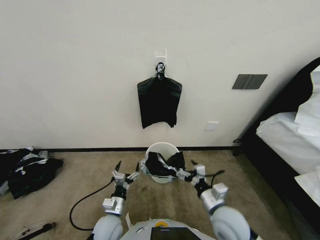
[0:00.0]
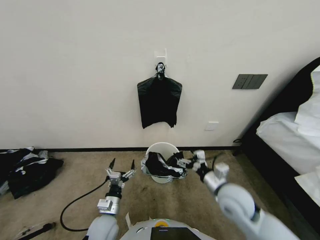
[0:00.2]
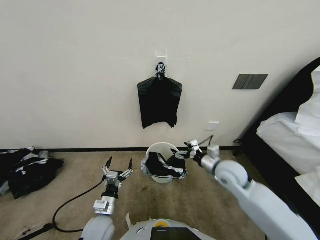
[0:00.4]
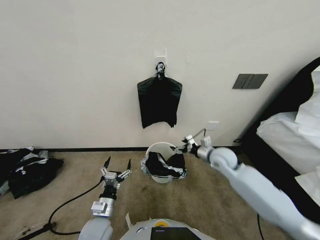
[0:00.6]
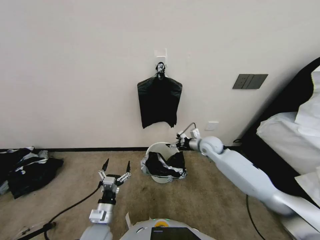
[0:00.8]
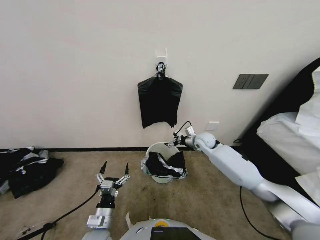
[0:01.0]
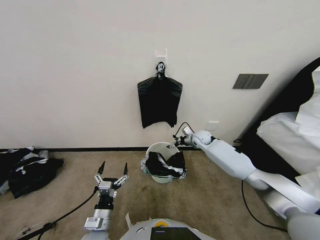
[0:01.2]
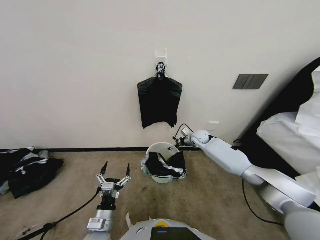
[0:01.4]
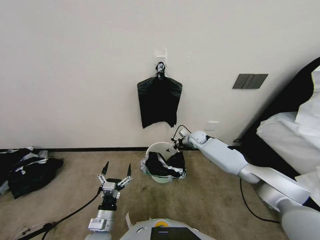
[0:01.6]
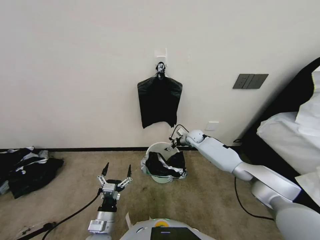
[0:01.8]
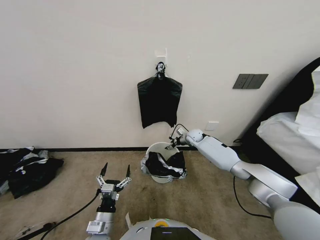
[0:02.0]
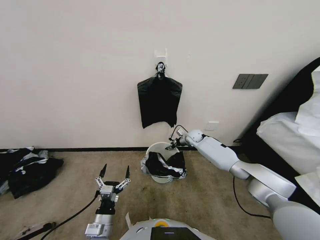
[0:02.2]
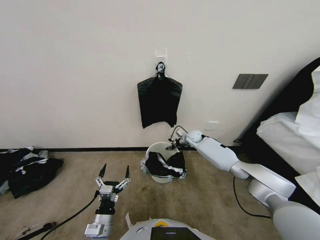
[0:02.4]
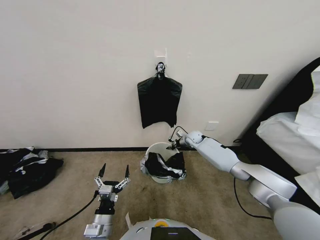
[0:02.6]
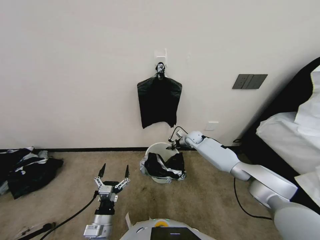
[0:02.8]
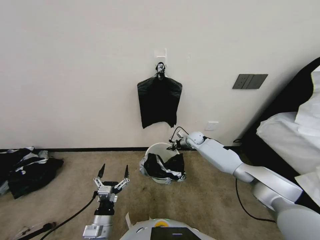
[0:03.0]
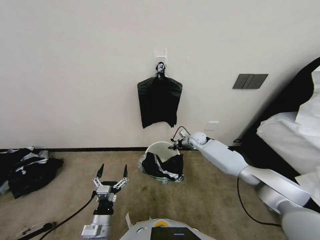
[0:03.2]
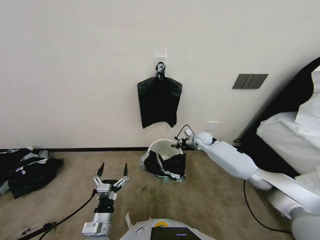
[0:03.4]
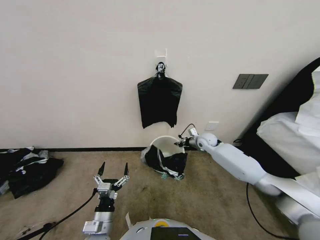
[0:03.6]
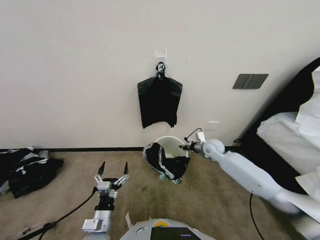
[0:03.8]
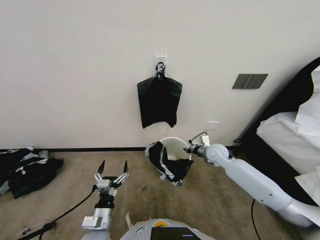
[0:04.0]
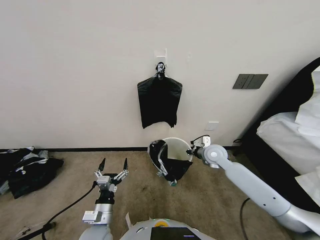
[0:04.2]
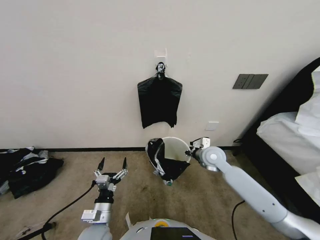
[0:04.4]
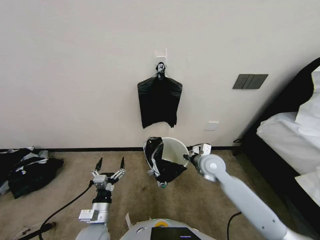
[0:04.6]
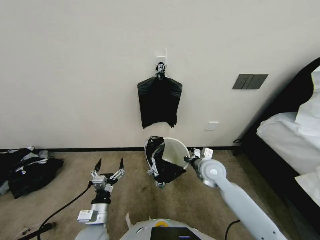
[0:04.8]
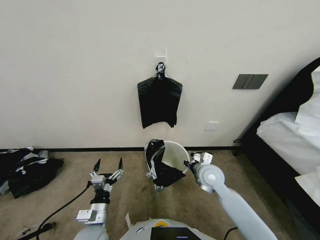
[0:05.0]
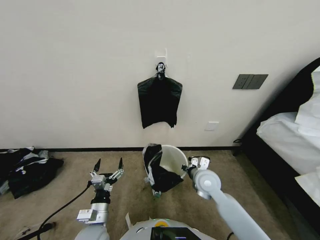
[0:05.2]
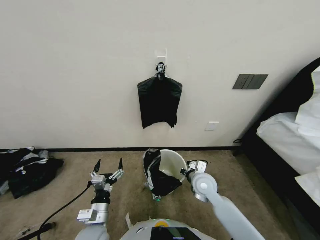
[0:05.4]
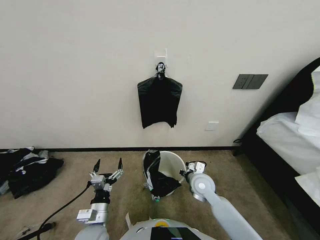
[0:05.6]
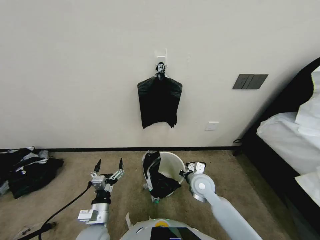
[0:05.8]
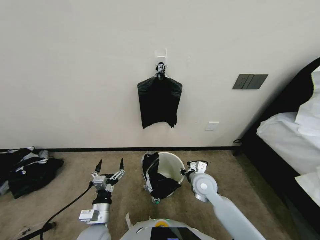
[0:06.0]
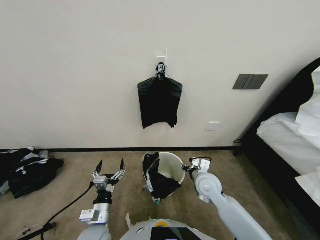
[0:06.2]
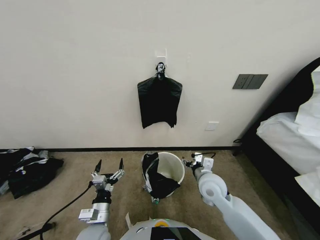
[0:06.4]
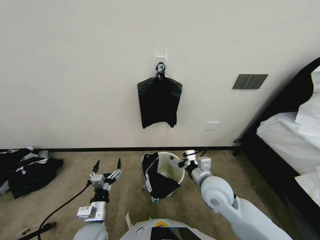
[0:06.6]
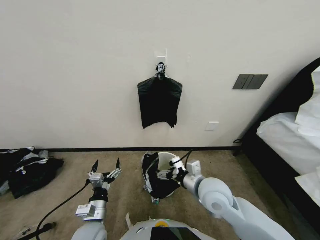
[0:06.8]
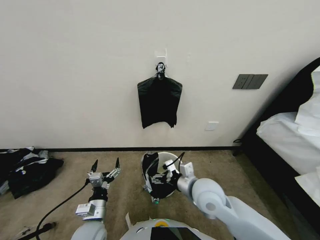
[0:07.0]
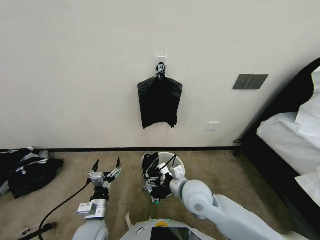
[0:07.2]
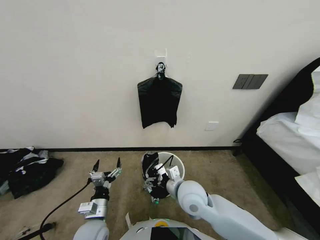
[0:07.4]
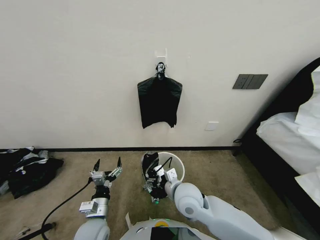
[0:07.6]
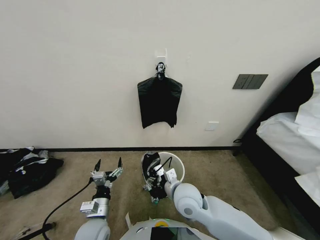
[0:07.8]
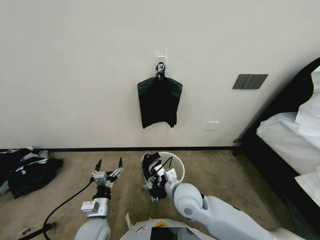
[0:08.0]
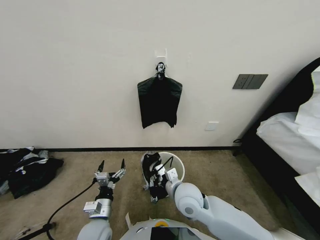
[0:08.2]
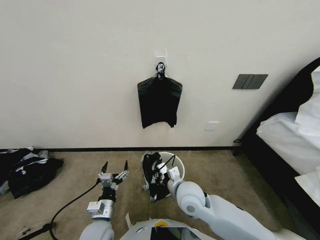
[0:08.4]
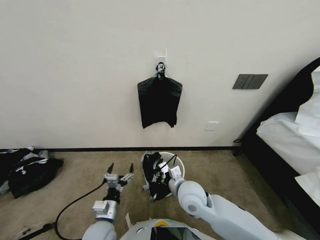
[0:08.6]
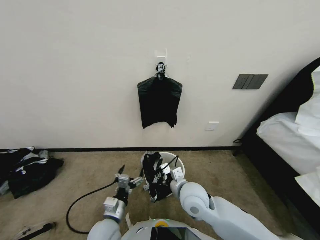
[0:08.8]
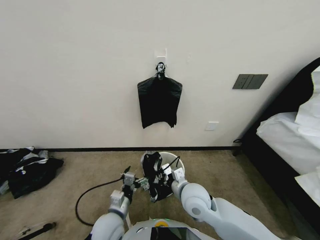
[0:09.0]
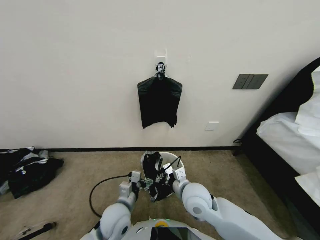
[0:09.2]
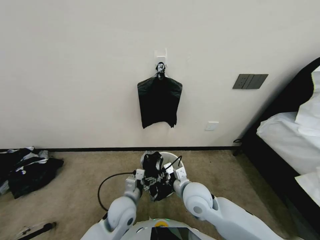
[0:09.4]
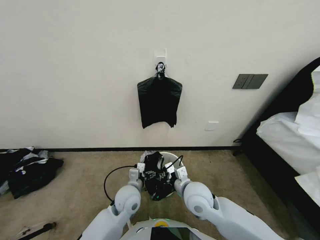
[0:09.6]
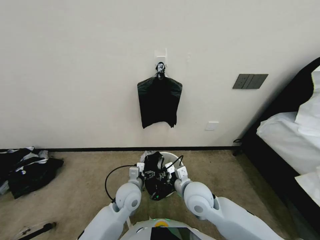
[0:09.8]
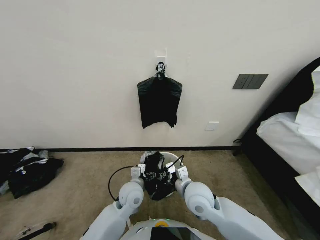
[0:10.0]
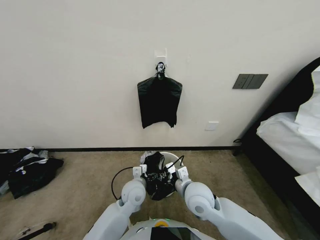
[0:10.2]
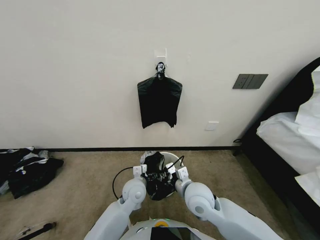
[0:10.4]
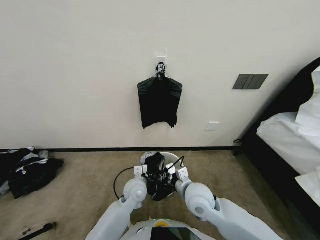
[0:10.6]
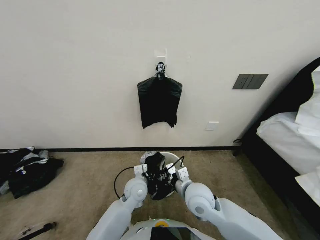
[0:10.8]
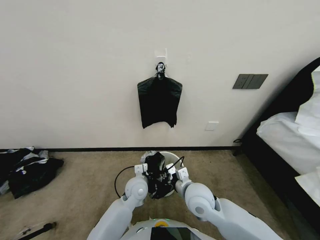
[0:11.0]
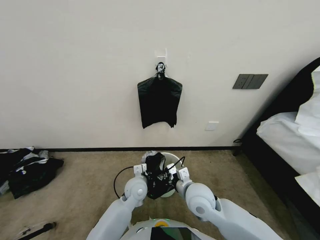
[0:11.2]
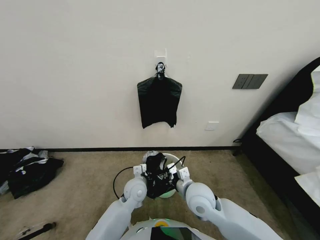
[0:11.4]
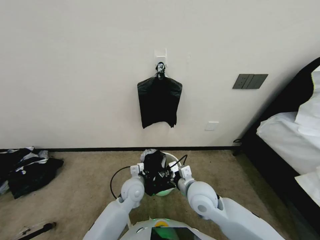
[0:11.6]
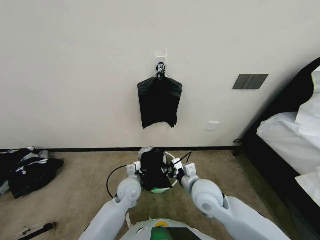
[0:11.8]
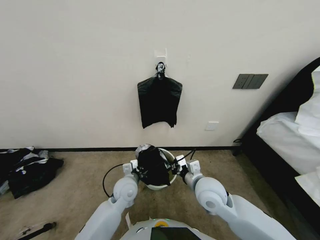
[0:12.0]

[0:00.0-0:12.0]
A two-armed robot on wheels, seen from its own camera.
Task of the whole recording: Place a trash bag onto the trash bin.
0:00.0 to 0:01.6: The left gripper ends up roughly 5 cm from where it was. Meanwhile the right gripper goes about 40 cm forward.
0:01.6 to 0:03.0: The right gripper closes up.
0:03.0 to 0:04.4: The right gripper is displaced backward and upward by approximately 20 cm.
0:04.4 to 0:06.0: The right gripper is displaced backward, downward and to the left by roughly 15 cm.
0:06.0 to 0:07.6: The right gripper is displaced to the left, upward and backward by some 15 cm, and opens its fingers.
0:07.6 to 0:09.0: The left gripper ends up some 5 cm from where it was. The right gripper closes its fingers.
0:09.0 to 0:10.4: The left gripper heads forward and to the right, covering some 15 cm.
0:10.4 to 0:12.0: The left gripper closes up.

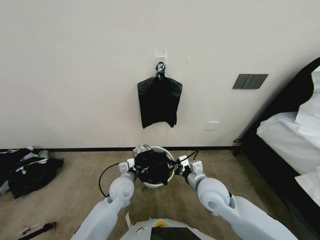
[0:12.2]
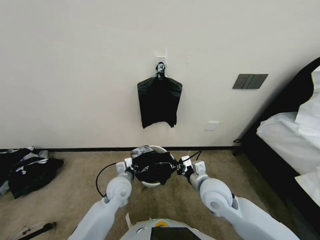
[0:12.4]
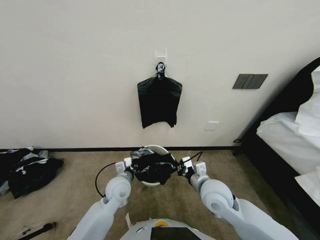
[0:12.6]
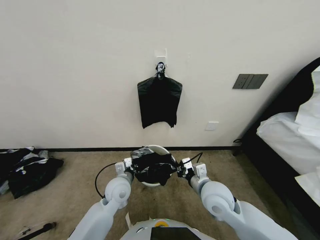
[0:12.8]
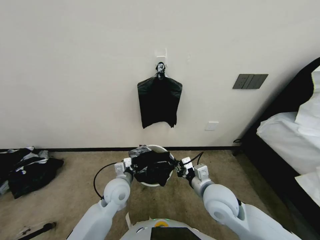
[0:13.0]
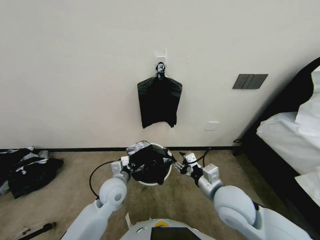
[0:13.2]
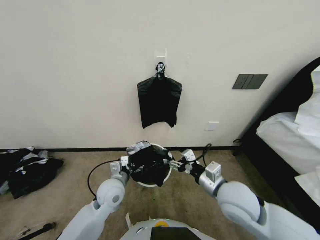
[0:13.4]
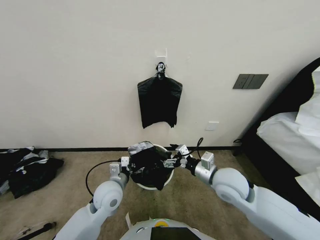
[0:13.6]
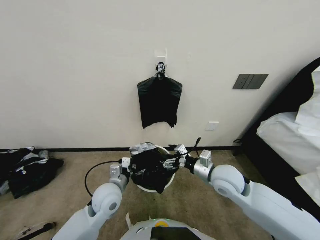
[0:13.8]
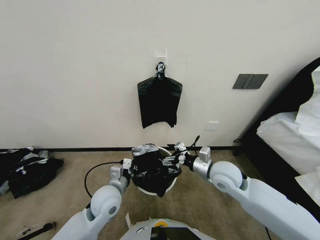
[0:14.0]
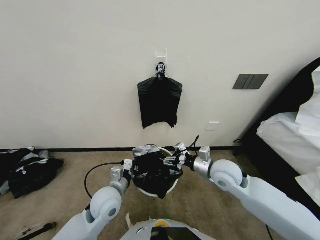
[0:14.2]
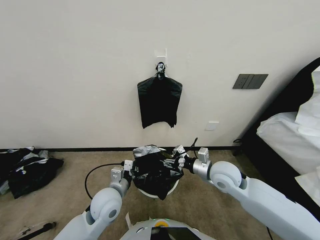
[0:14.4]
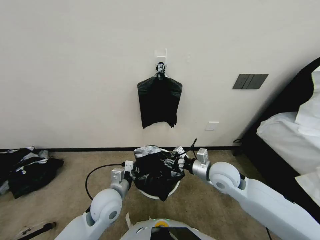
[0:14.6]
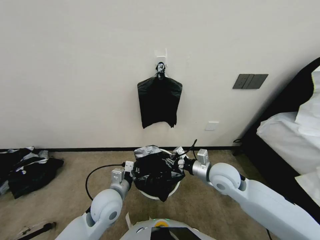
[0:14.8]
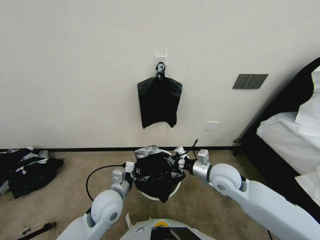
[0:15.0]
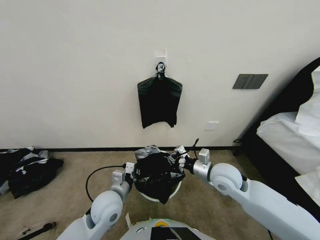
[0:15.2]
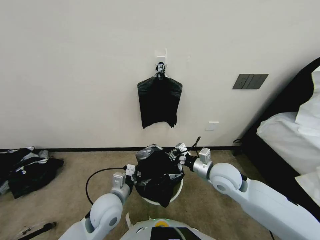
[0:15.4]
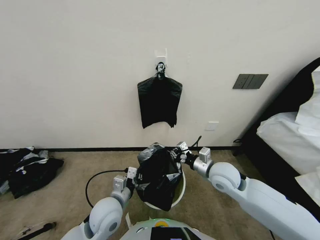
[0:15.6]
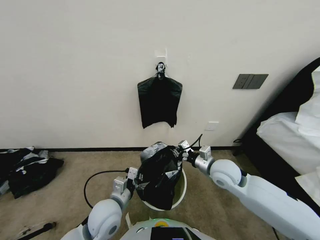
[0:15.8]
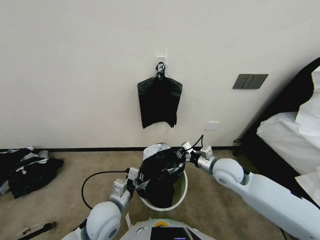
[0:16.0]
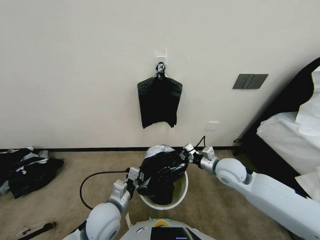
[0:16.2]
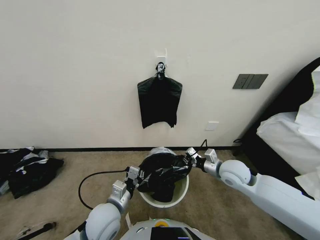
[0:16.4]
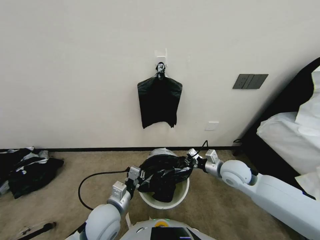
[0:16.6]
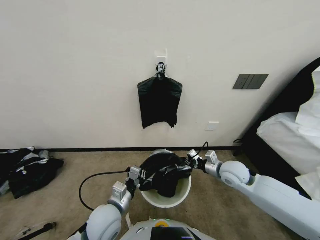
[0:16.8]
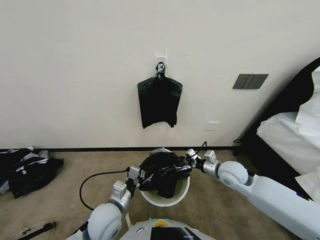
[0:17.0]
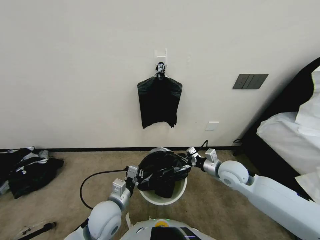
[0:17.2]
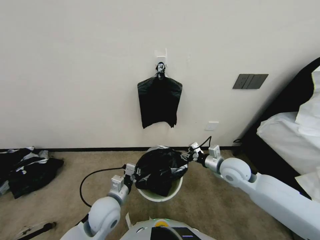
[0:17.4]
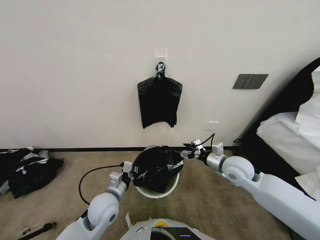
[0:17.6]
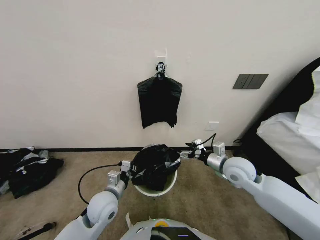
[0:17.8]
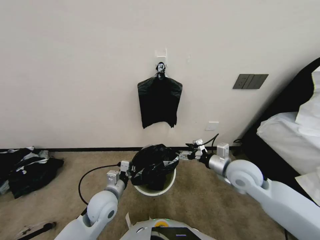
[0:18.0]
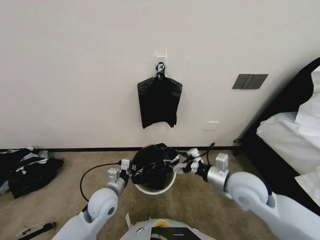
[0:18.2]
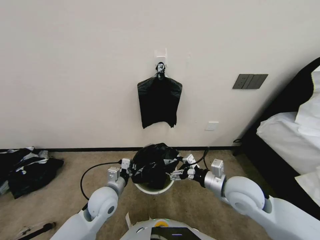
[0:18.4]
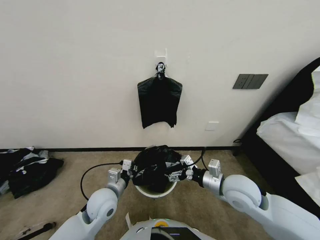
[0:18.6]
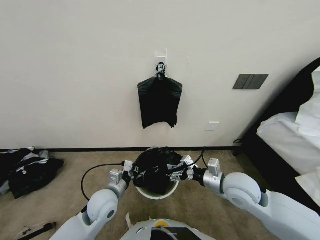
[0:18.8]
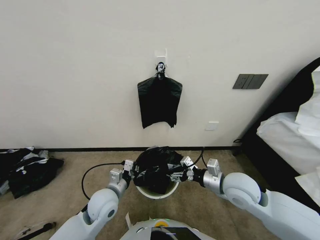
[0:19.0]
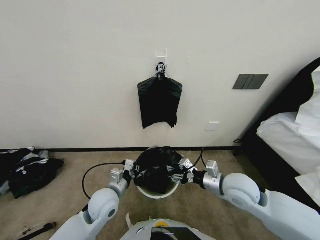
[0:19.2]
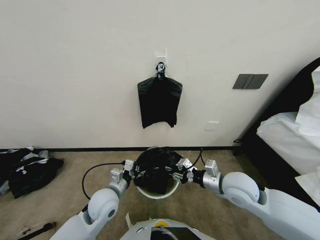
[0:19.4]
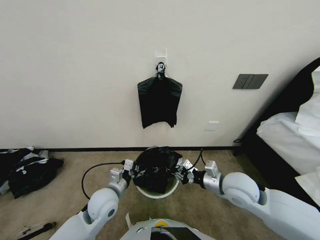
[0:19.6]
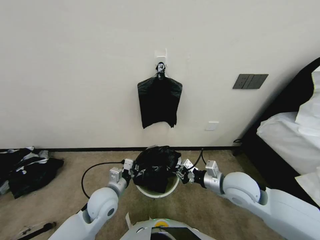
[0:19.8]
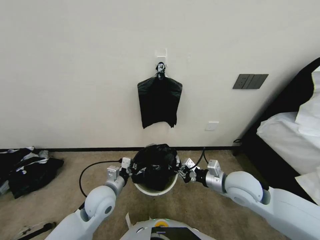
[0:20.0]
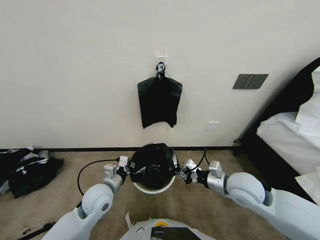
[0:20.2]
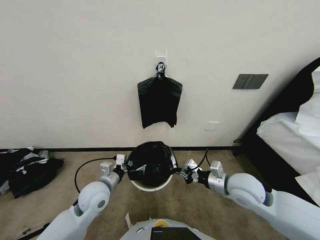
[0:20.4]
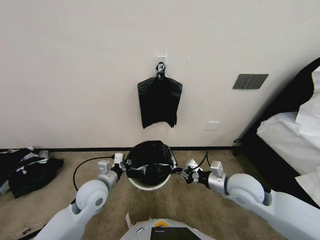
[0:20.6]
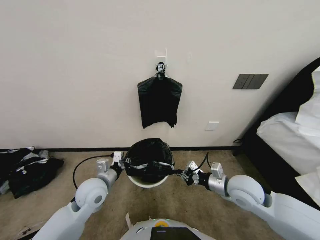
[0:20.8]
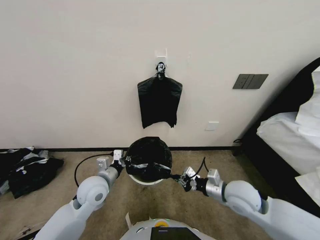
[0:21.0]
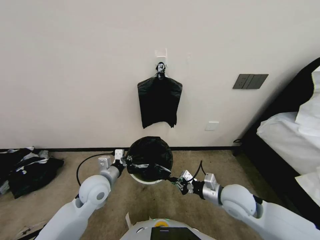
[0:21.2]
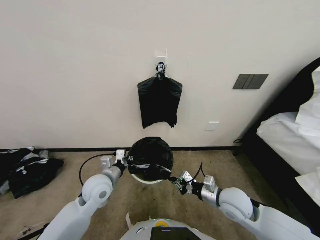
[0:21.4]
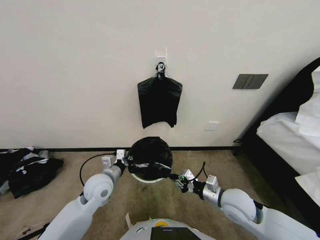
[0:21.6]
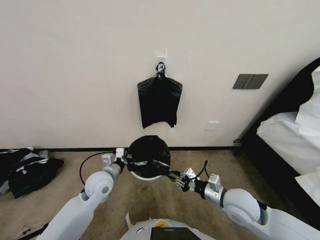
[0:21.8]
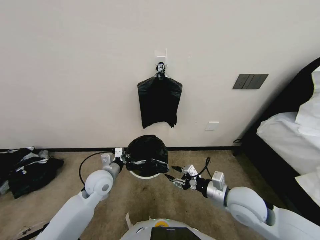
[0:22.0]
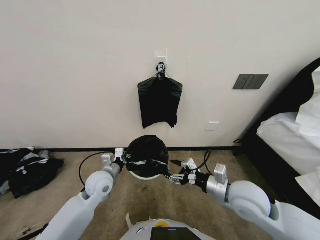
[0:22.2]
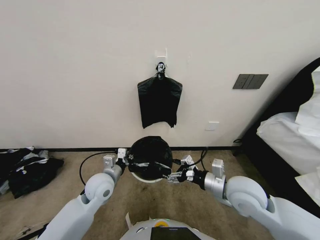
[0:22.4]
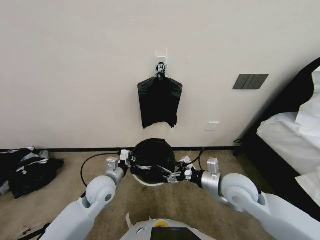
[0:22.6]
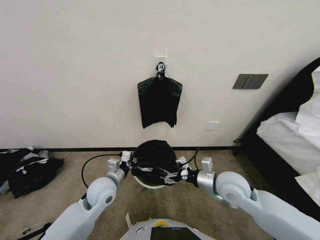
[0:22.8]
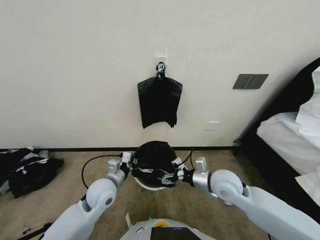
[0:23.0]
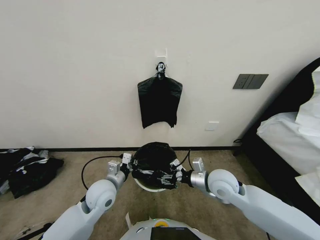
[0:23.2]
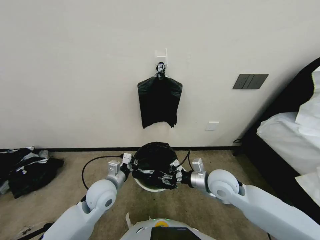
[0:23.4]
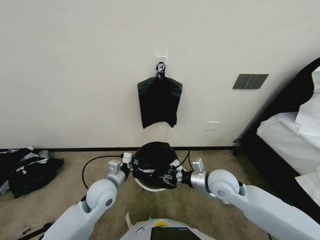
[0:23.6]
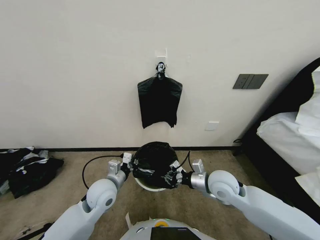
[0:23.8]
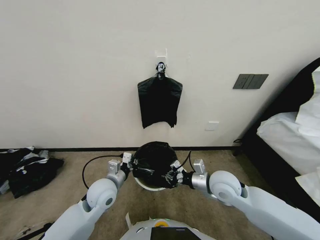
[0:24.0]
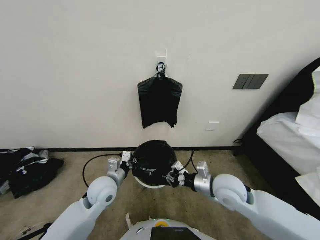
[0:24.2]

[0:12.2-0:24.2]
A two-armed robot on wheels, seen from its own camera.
Task of the whole recording: Place a trash bag onto the trash bin.
0:12.2 to 0:13.8: The right gripper moves to the right, approximately 5 cm, and opens. The left gripper ends up roughly 5 cm from where it was.
0:13.8 to 0:15.2: The right gripper closes its fingers.
0:15.2 to 0:16.6: The right gripper goes about 5 cm to the right.
0:16.6 to 0:18.2: The left gripper goes about 5 cm forward. Meanwhile the right gripper shifts roughly 5 cm backward, and opens.
0:18.2 to 0:19.8: The right gripper closes up.
0:19.8 to 0:21.2: The left gripper moves approximately 5 cm.
0:21.2 to 0:22.6: The right gripper ends up roughly 5 cm from where it was, and opens.
0:22.6 to 0:24.2: The right gripper closes its fingers.
